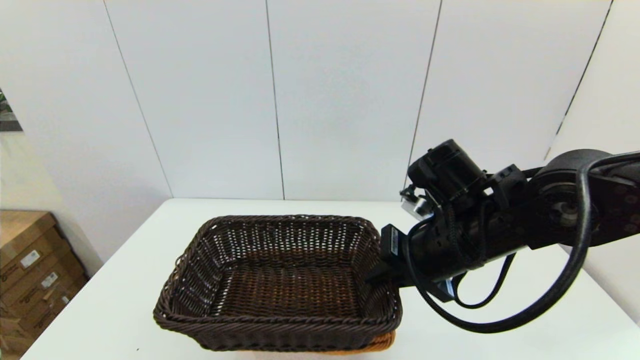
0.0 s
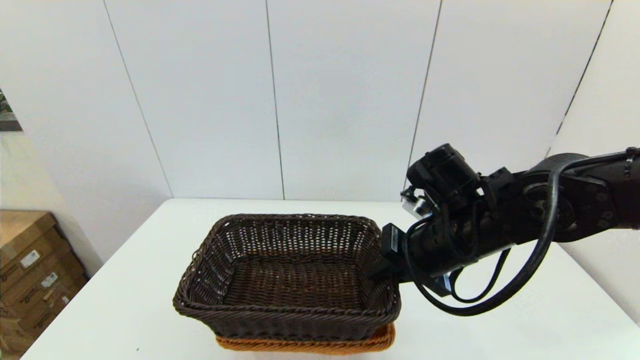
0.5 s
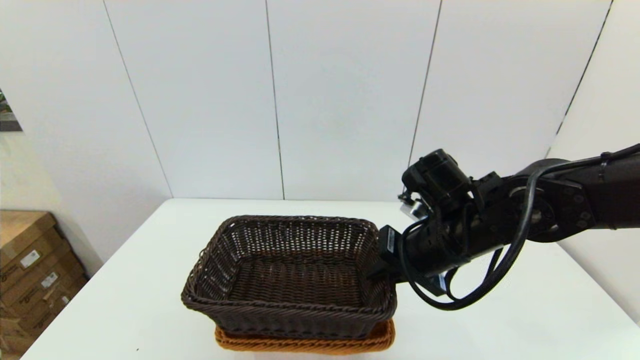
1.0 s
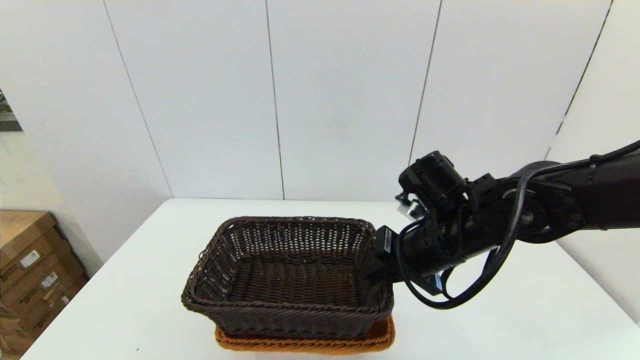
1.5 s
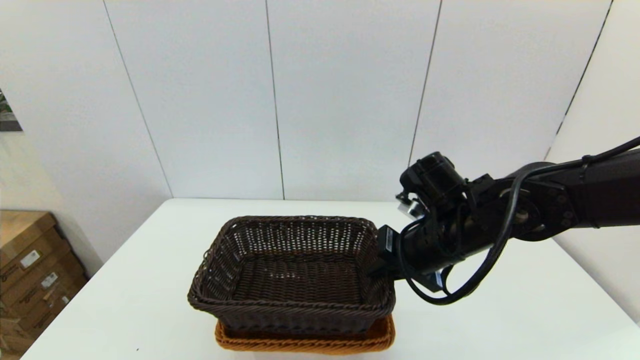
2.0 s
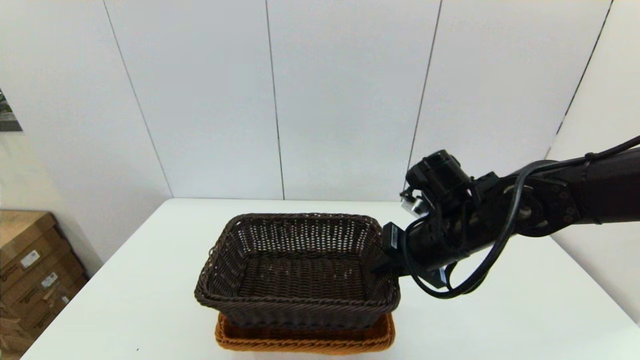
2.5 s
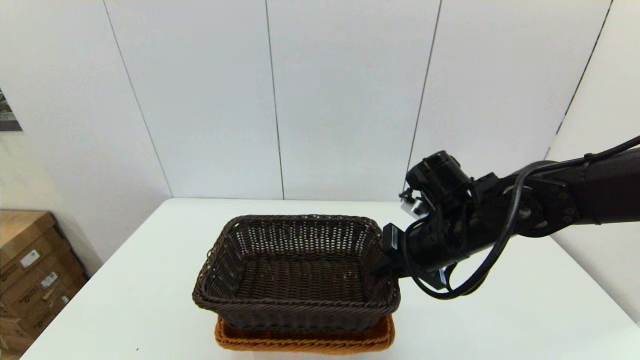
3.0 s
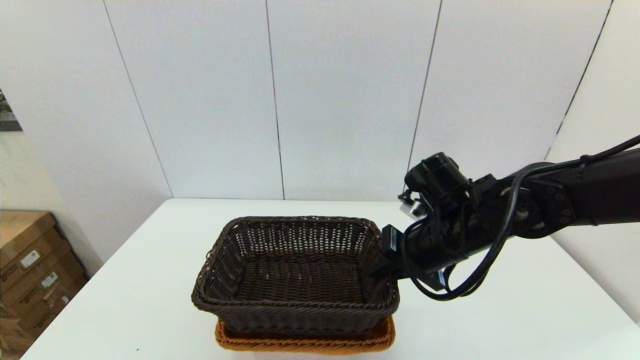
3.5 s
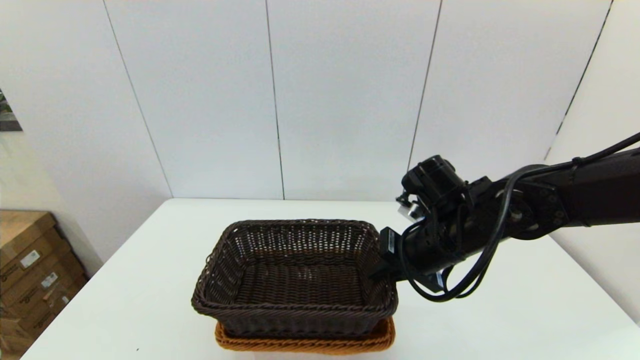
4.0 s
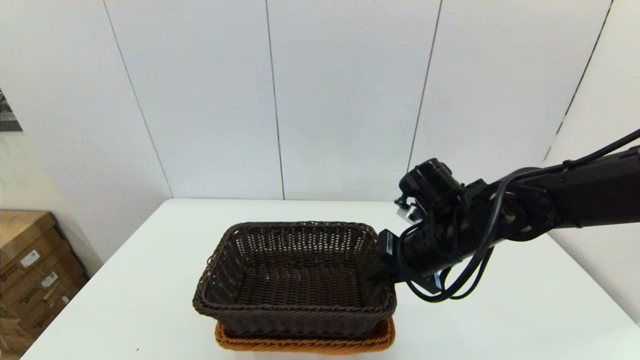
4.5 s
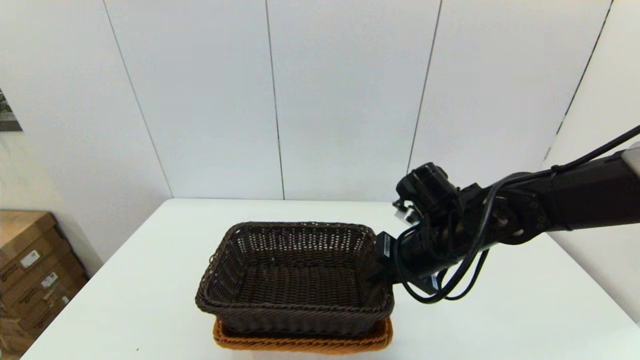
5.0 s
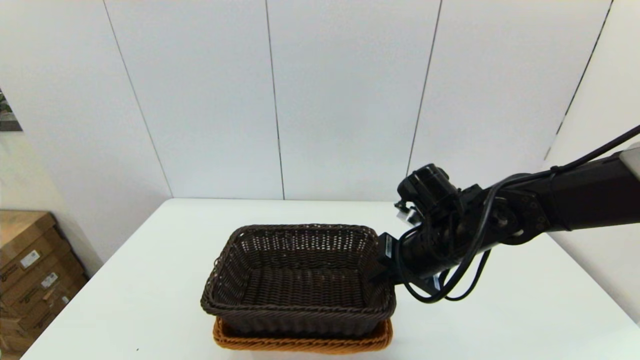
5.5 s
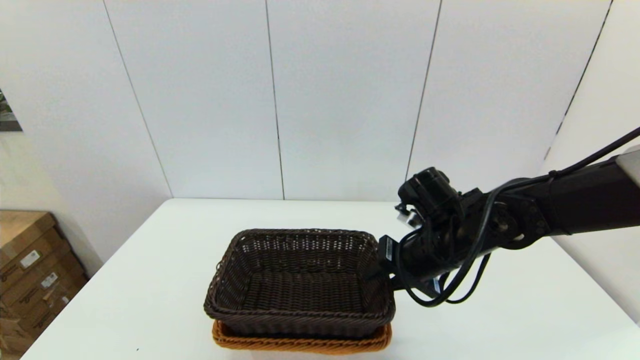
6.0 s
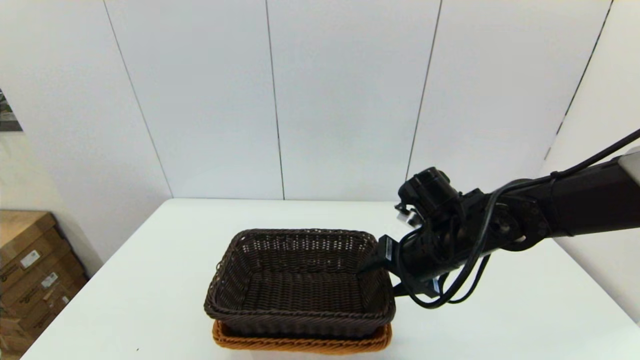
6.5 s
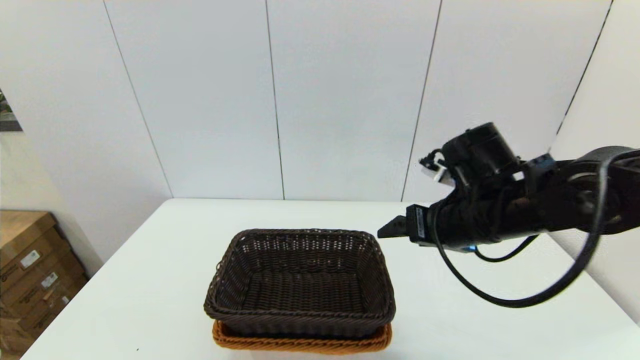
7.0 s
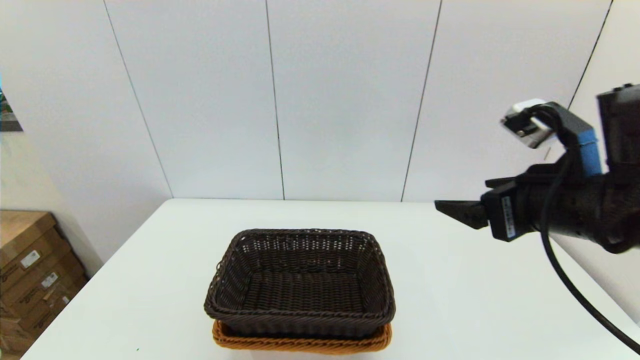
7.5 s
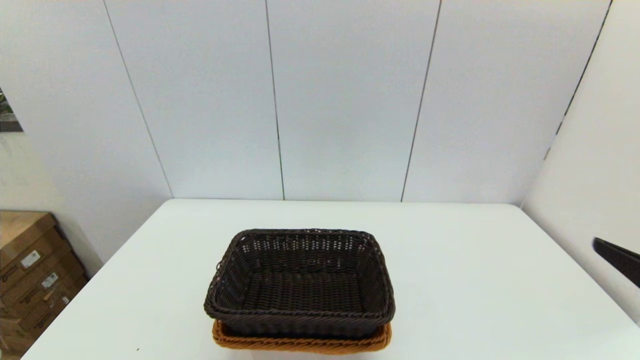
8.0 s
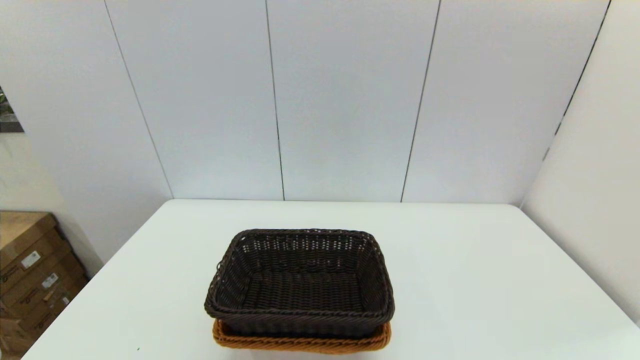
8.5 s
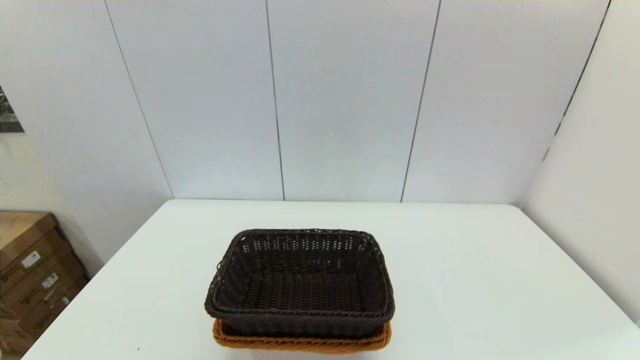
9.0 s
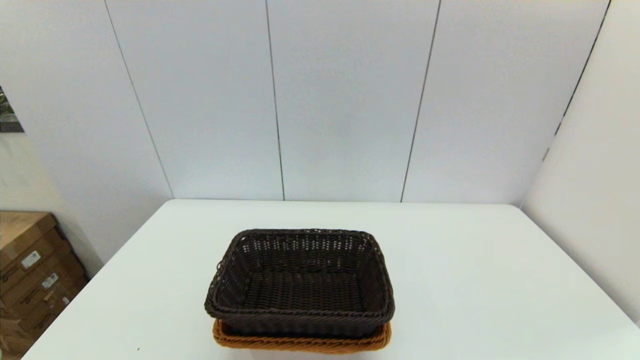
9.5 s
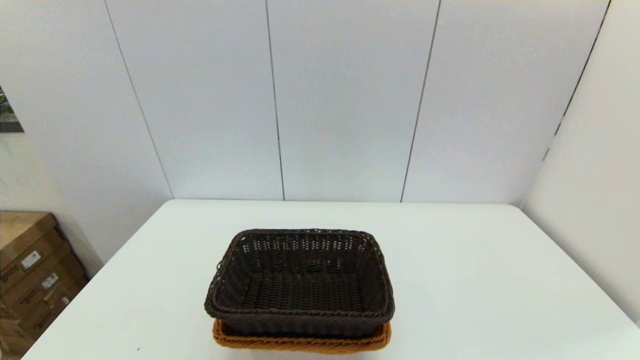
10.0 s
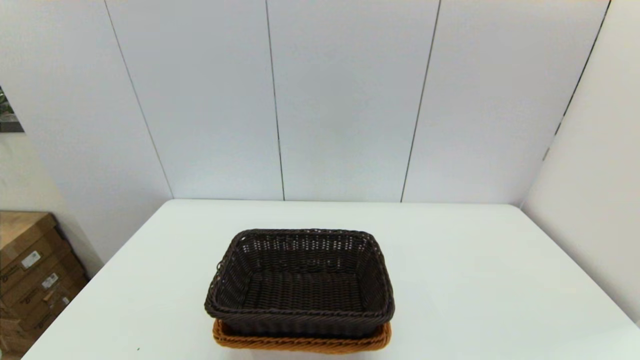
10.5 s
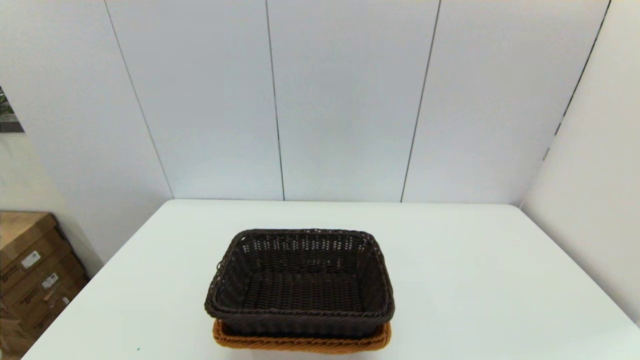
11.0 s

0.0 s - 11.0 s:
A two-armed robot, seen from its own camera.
Task of the whole recording: stack a basket on top of another basket.
Step, 0.0 s - 7.0 s: Place the dark basket into the light color basket with the right gripper.
0.0 s - 2.0 s: The grippers stay close to where they were, moving slightly.
2.0 s - 3.5 s: Both grippers stay put.
3.5 s - 5.5 s: There are only small adjustments of the grippers.
5.5 s - 7.5 s: The right gripper shifts roughly 15 cm upward, backward and to the right, and opens.
7.5 s - 9.0 s: The right gripper heads backward and to the right, covering approximately 25 cm.

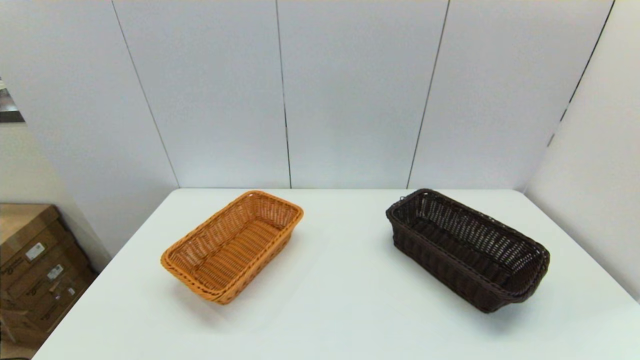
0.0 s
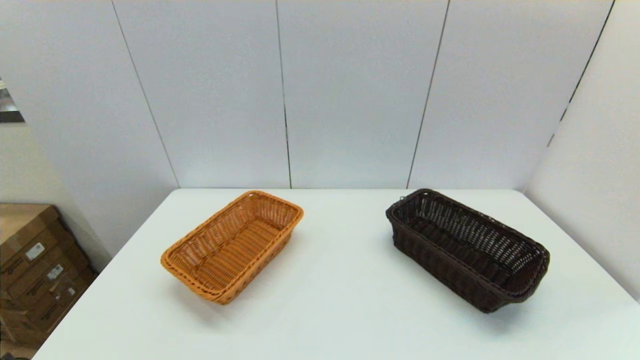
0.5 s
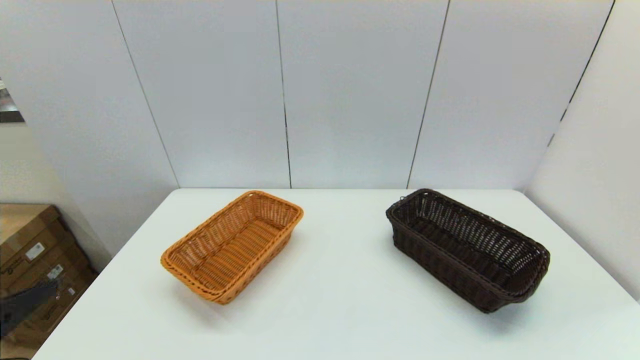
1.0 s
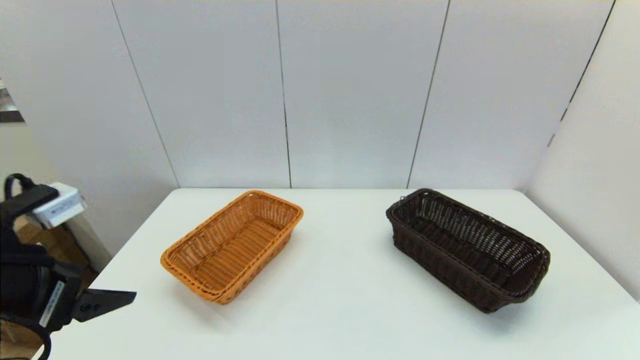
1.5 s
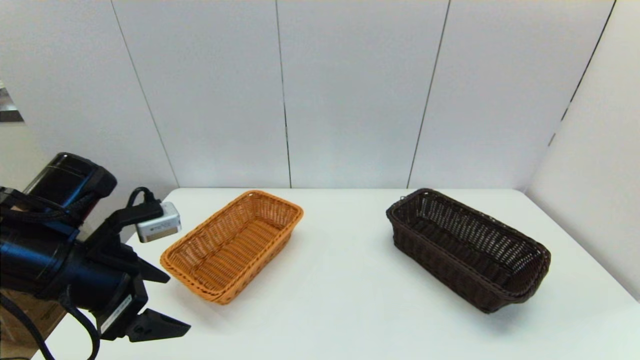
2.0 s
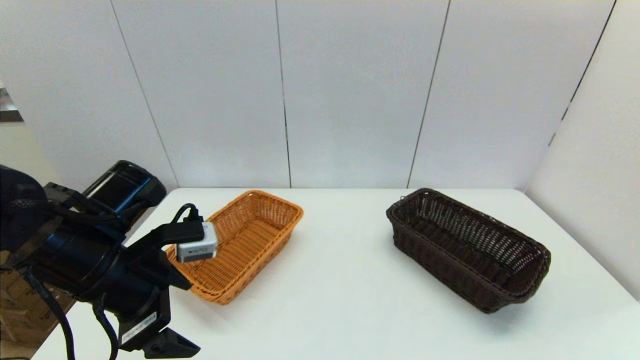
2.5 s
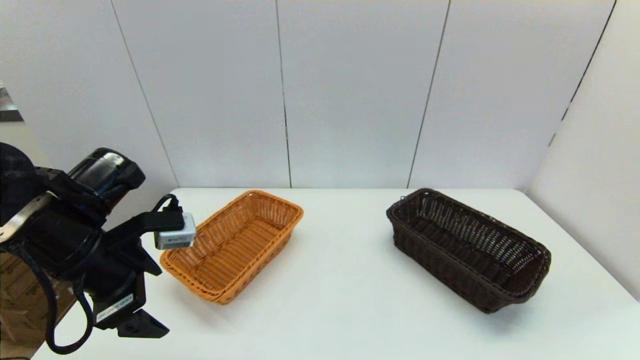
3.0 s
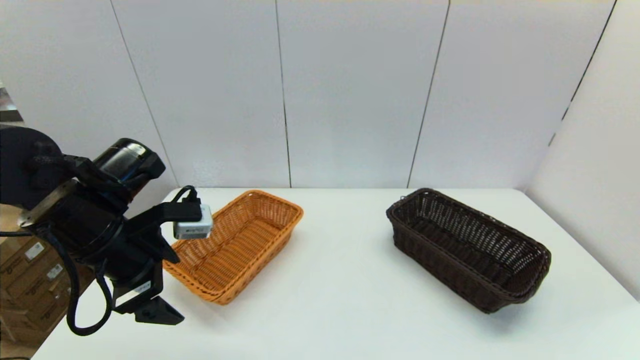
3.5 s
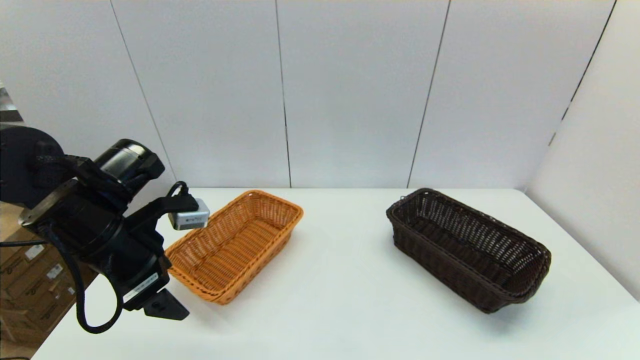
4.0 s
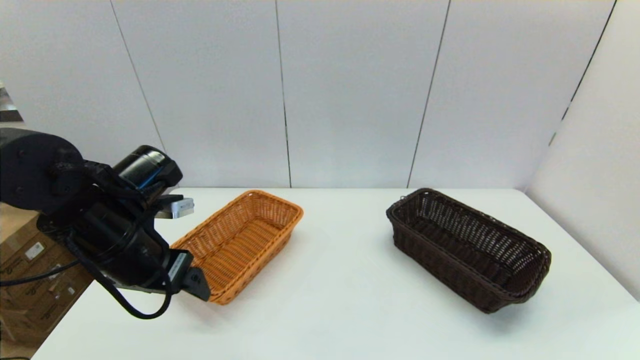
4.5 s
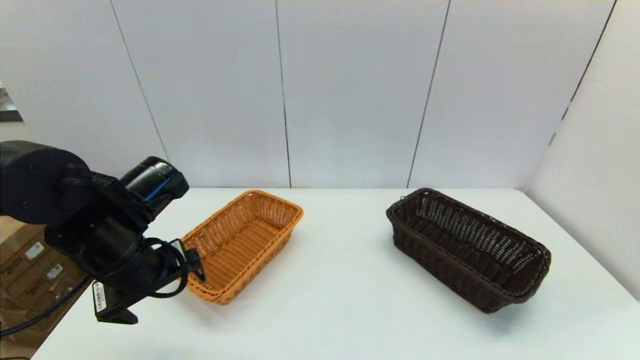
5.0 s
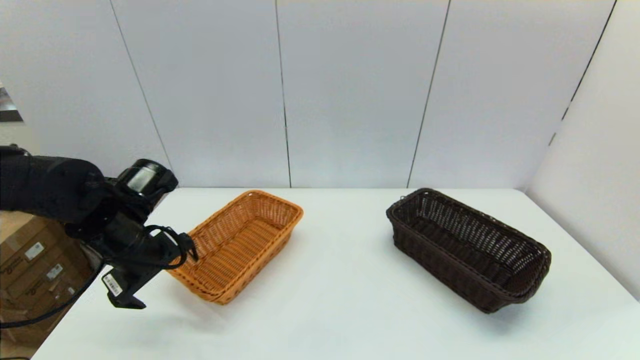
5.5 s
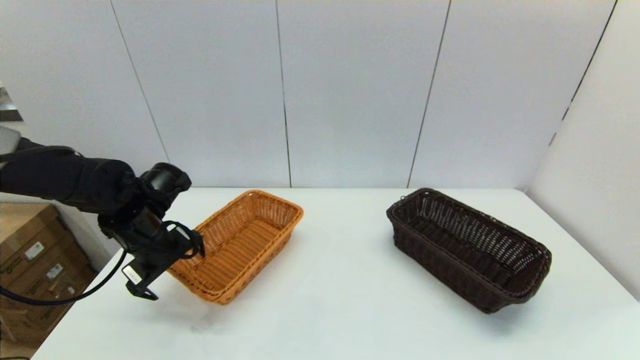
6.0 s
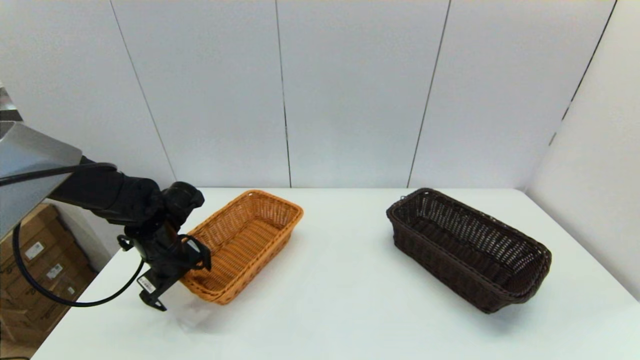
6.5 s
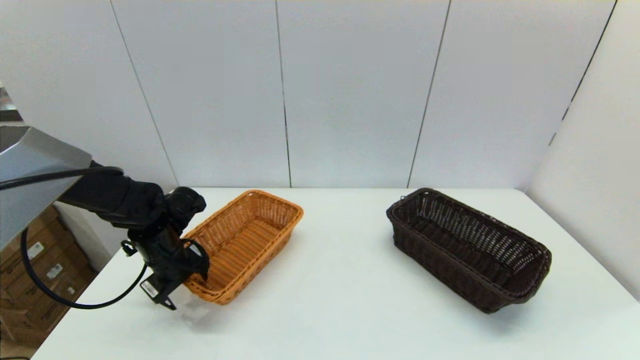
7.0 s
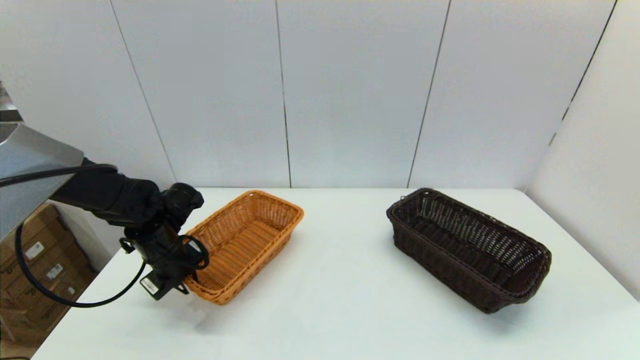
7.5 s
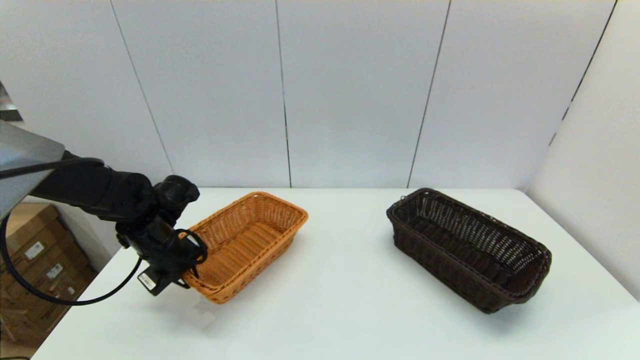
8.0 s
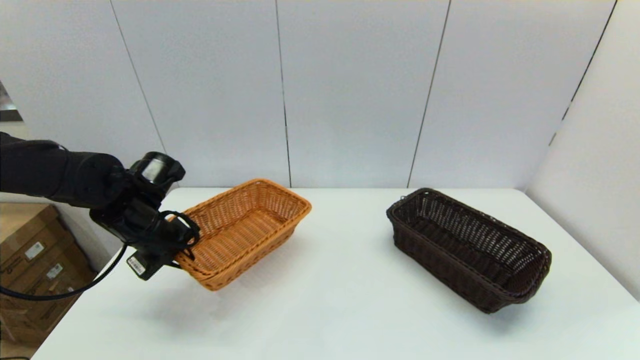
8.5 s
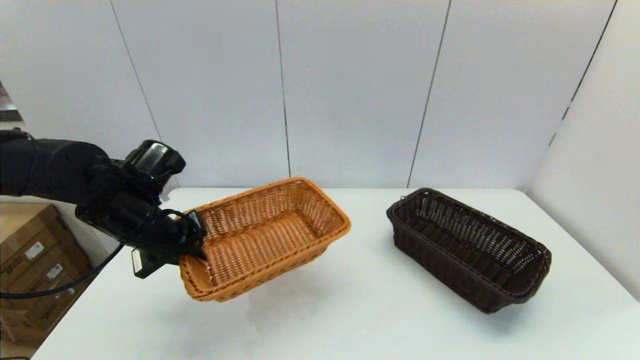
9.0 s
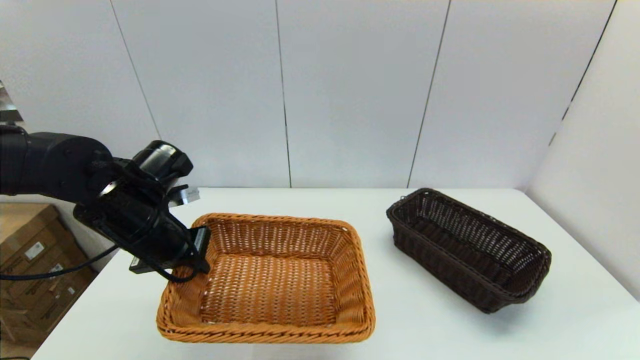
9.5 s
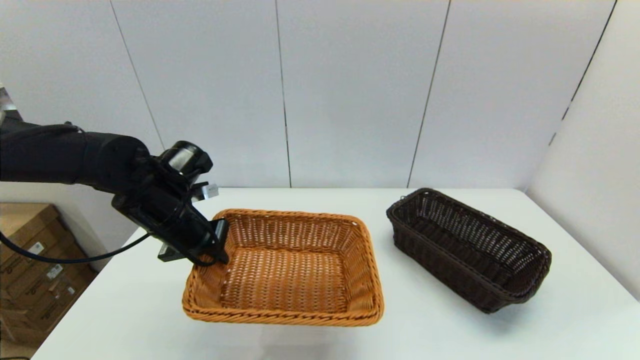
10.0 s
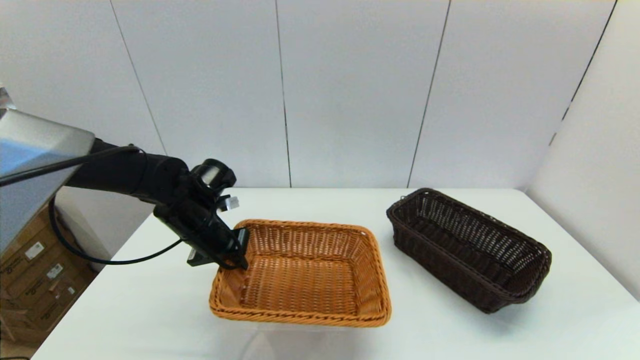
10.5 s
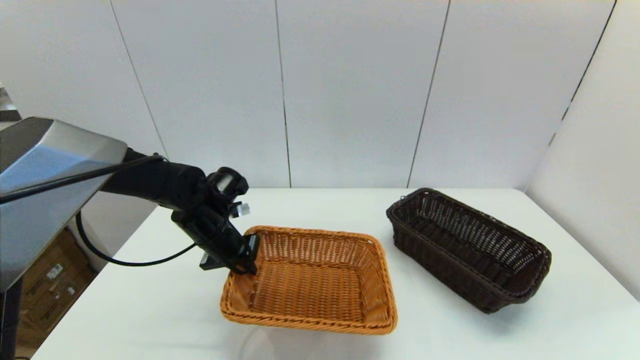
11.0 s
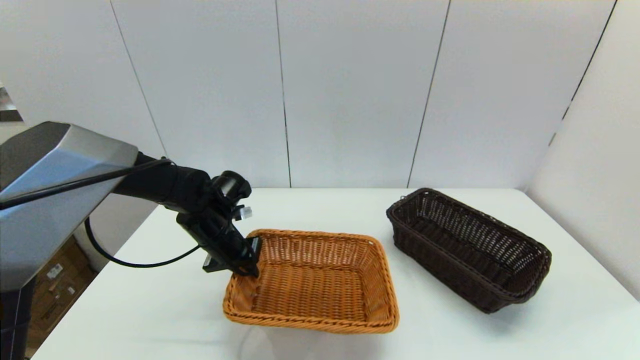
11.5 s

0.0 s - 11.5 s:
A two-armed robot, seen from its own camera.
Task of the whole recording: stack a basket on top of another basket.
Step, 0.0 s - 7.5 s: Grasp the light basket with the left gripper.
0.0 s - 2.0 s: The left gripper goes some 25 cm forward and upward.
4.0 s - 6.0 s: The left gripper shifts roughly 10 cm forward and downward.
6.0 s - 7.5 s: The left gripper shifts by about 5 cm, and closes its fingers.
7.5 s - 9.5 s: The left gripper heads upward and backward, covering roughly 10 cm.
9.5 s - 11.5 s: The left gripper moves downward and forward, approximately 10 cm.
